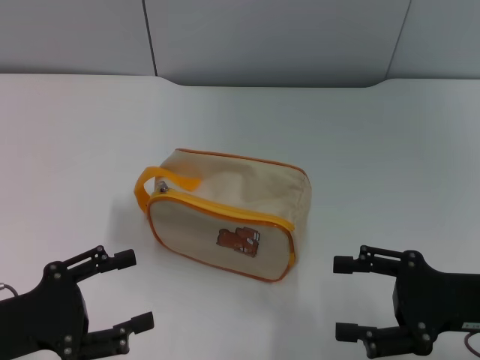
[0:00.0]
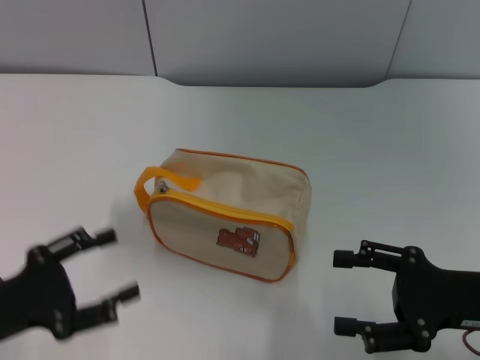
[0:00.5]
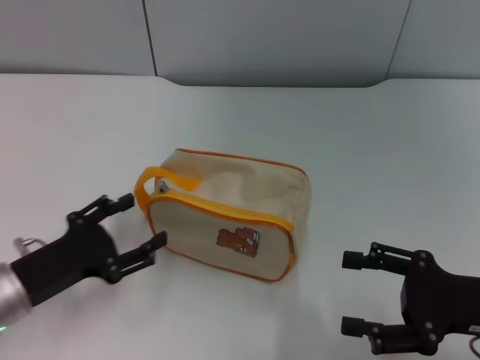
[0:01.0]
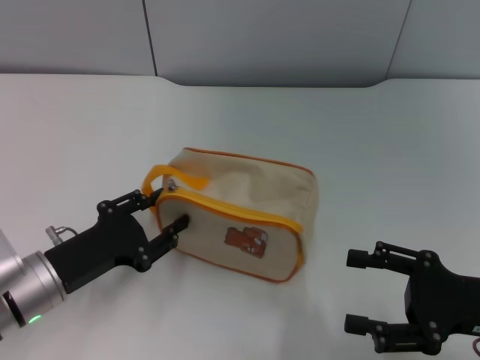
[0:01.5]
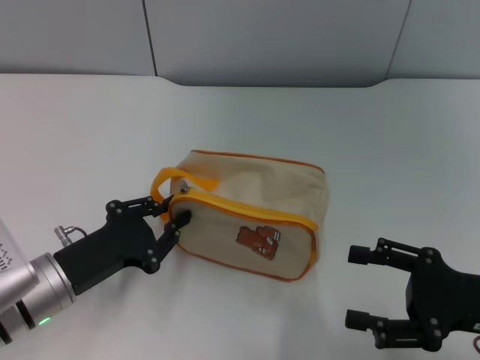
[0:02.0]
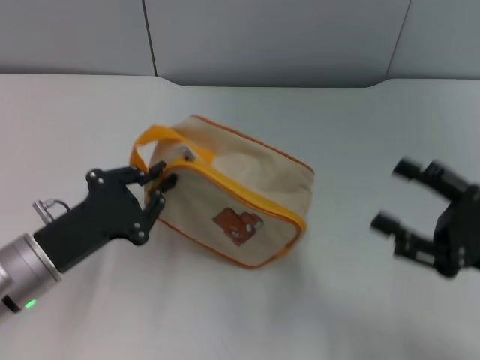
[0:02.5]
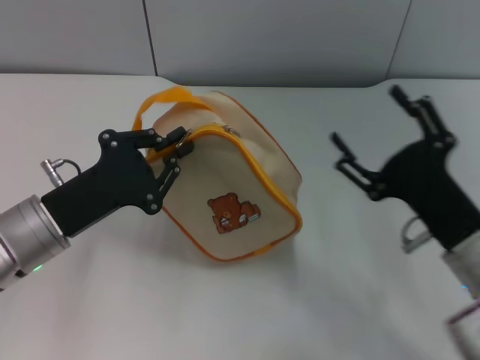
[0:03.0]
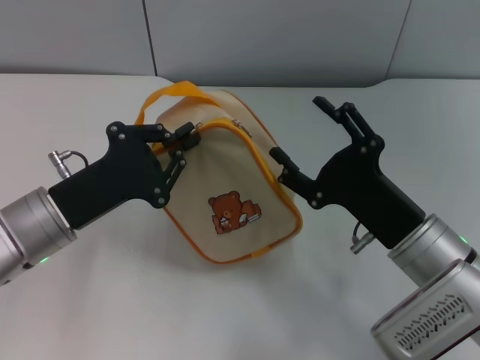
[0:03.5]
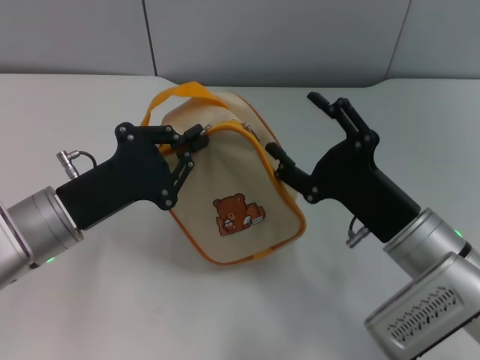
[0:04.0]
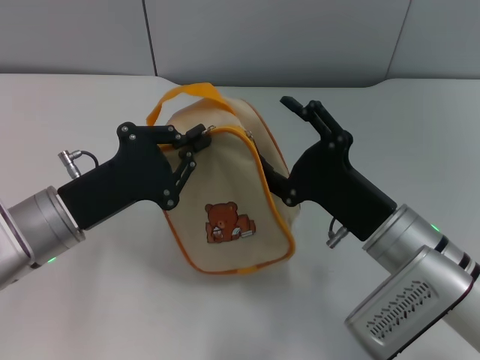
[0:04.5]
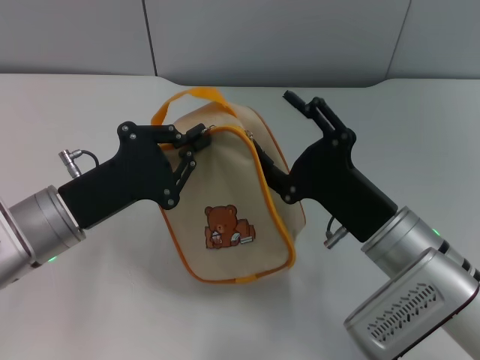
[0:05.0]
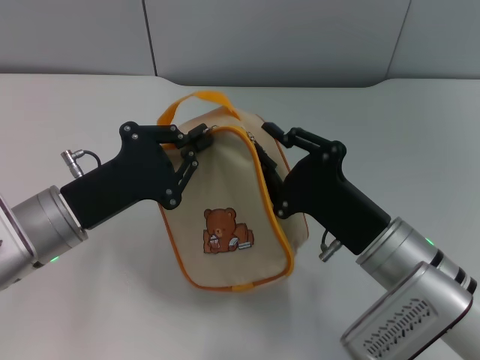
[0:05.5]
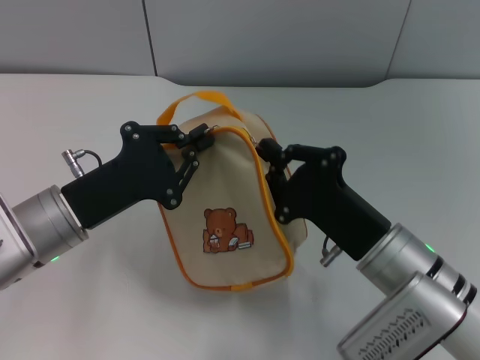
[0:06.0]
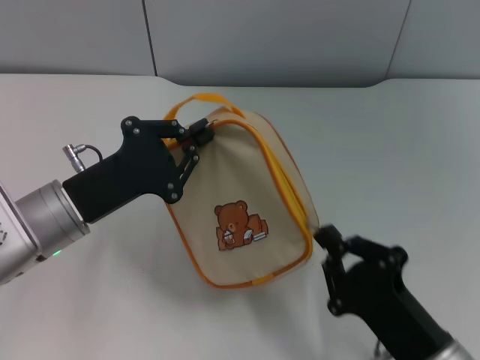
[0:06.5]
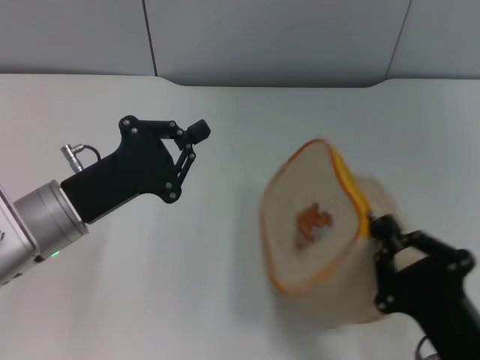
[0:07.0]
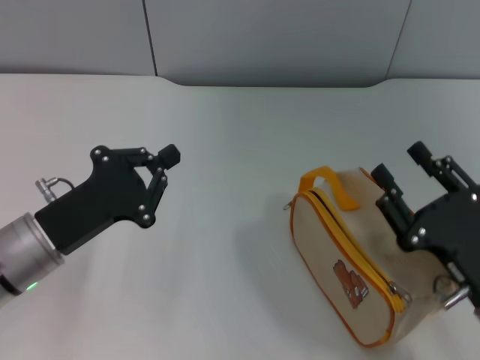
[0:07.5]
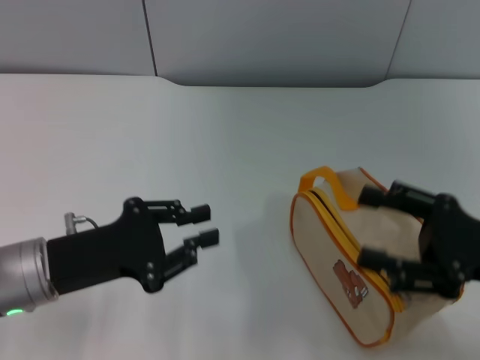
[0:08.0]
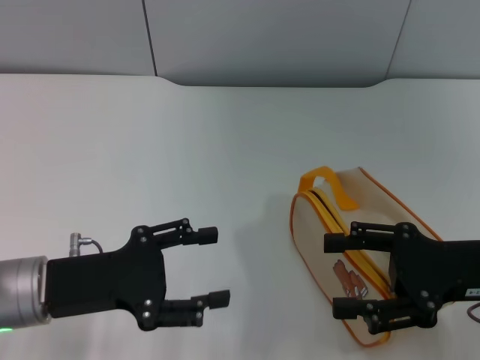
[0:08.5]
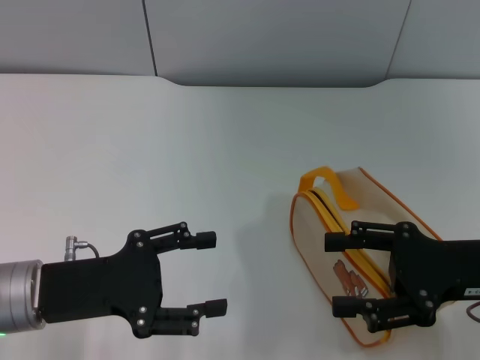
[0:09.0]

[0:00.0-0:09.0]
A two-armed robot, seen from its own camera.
Step, 0:00.0 to 0:02.5: Pick up the bag with left gripper.
Step, 0:03.5 to 0:07.0: Unzip the zipper of bag with right gripper.
0:00.0 to 0:02.0: The left gripper moves to the right and forward, approximately 10 cm, and closes its fingers.
0:02.0 to 0:04.5: The right gripper moves to the left, about 15 cm. The left gripper shifts roughly 5 cm upward.
0:04.5 to 0:07.0: The right gripper is displaced backward by some 15 cm, and closes up.
0:07.0 to 0:09.0: The right gripper goes some 15 cm forward, upward and to the right, and opens its fingers. The left gripper moves approximately 5 cm, and opens its fingers.

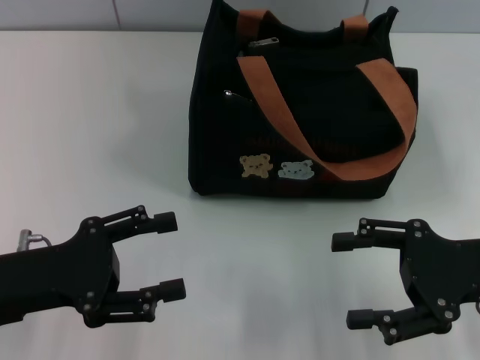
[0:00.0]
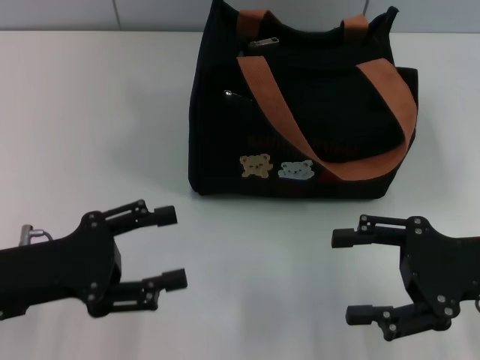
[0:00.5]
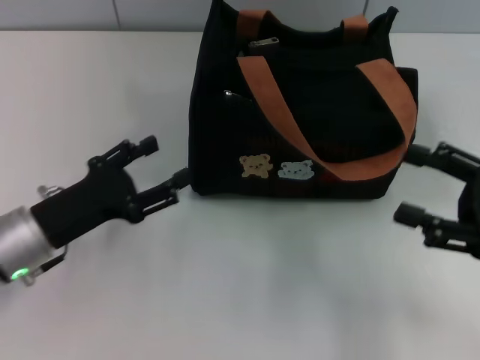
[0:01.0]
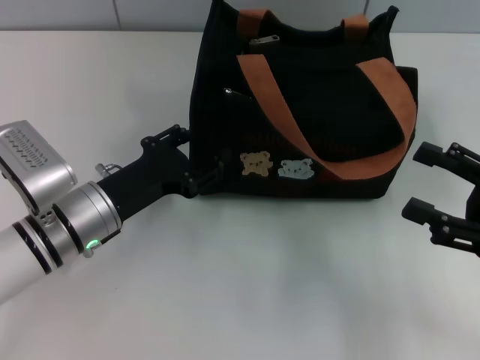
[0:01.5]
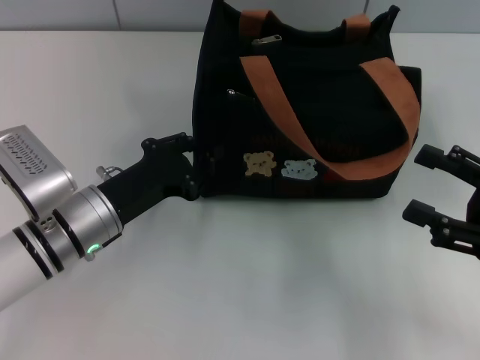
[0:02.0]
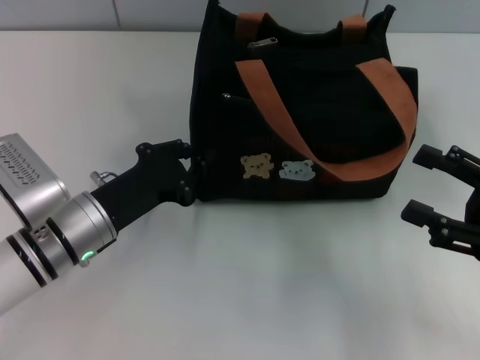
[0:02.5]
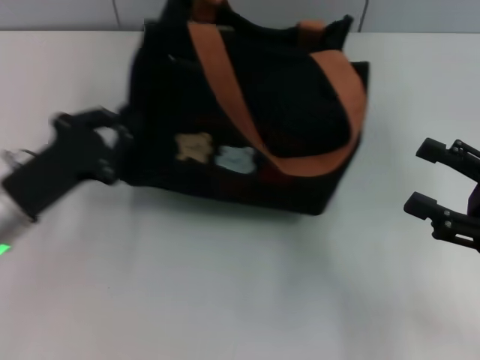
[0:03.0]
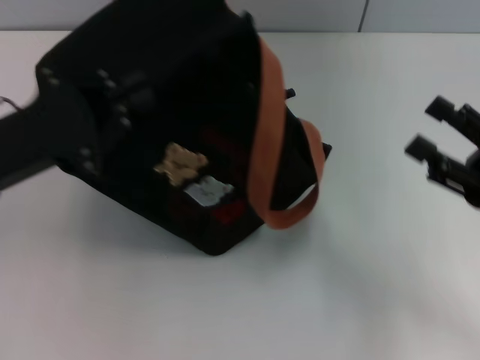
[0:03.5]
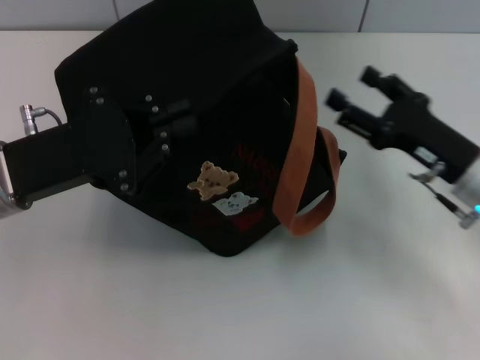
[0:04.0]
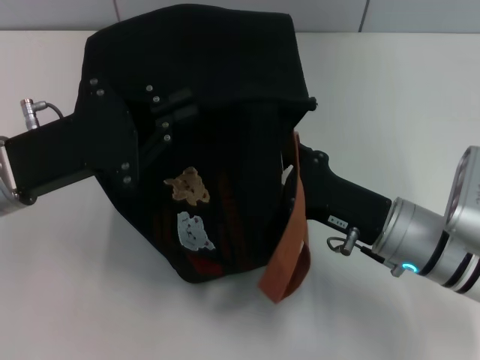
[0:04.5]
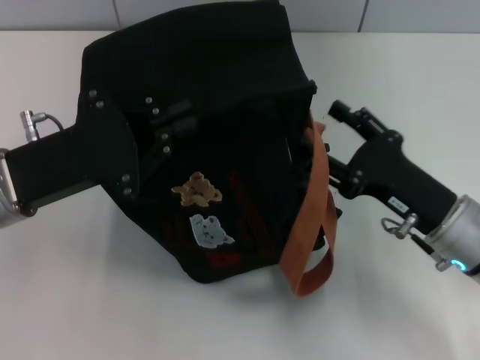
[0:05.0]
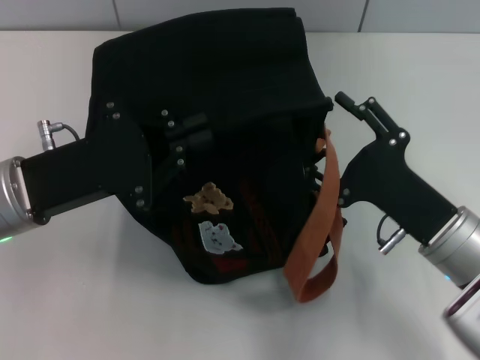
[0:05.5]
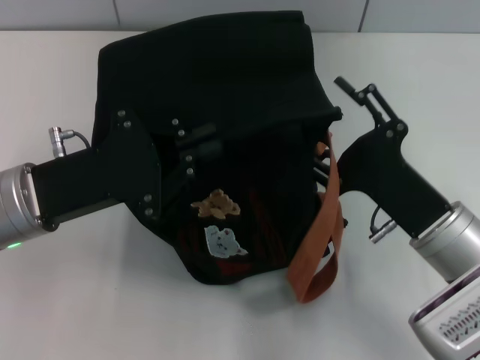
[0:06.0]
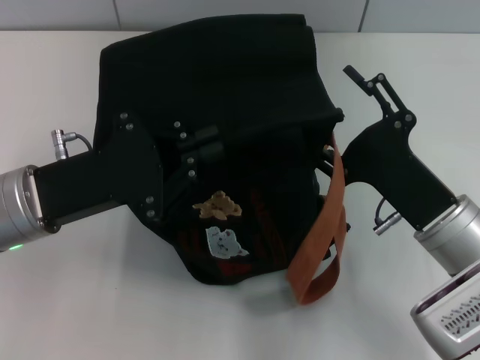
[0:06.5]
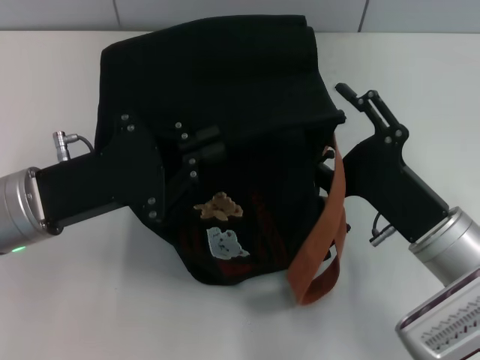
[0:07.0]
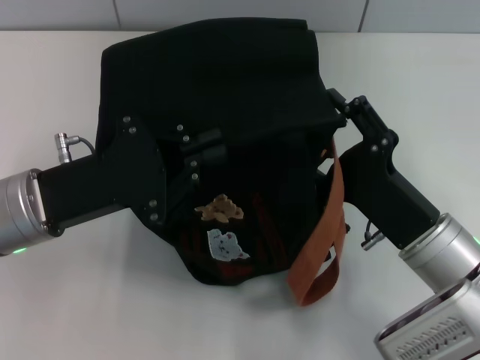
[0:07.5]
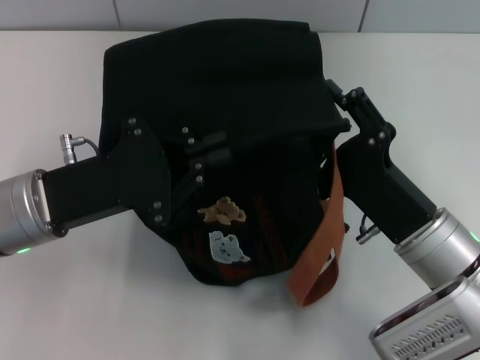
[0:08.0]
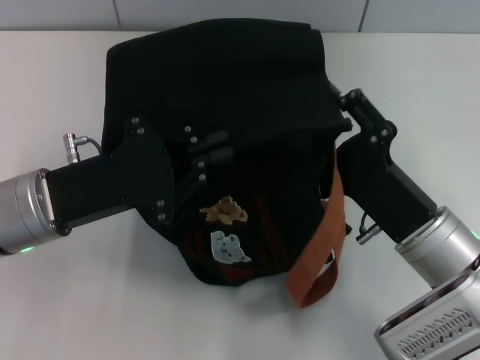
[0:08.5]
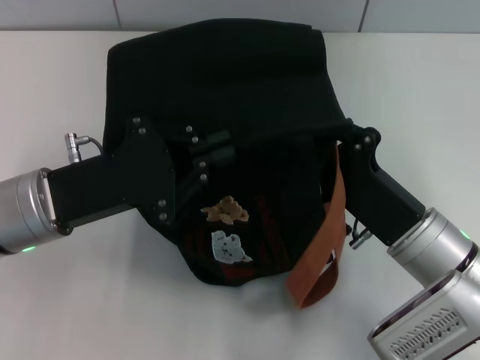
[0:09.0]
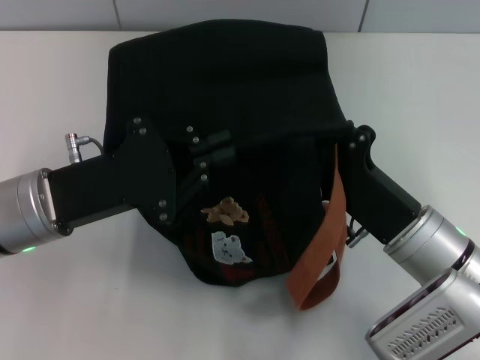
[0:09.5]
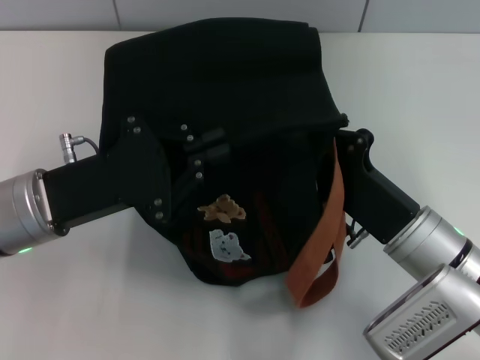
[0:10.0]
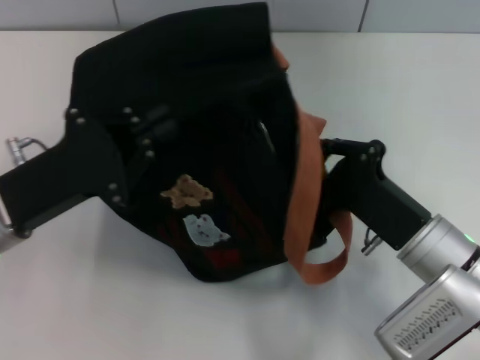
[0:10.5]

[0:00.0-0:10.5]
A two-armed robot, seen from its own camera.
0:00.0 to 0:02.0: The right gripper moves roughly 5 cm. Meanwhile the left gripper heads to the right, forward and downward, covering roughly 10 cm, and closes.
0:02.0 to 0:04.0: The left gripper is displaced upward and to the left by some 10 cm, and closes up; the right gripper heads forward and to the left, covering some 10 cm.
0:04.0 to 0:06.5: The right gripper is displaced backward by approximately 5 cm.
0:06.5 to 0:08.5: The grippers move only a little.
0:08.5 to 0:10.5: The right gripper closes.

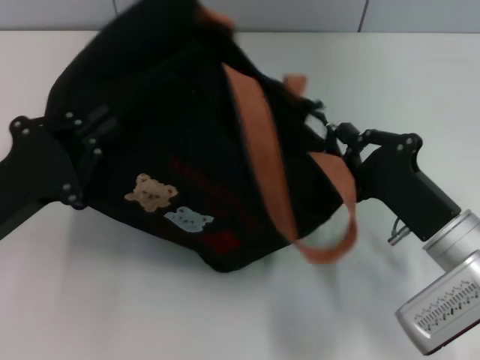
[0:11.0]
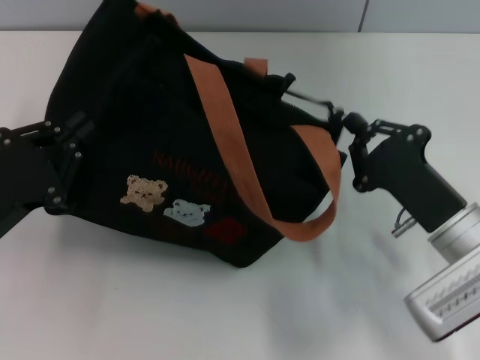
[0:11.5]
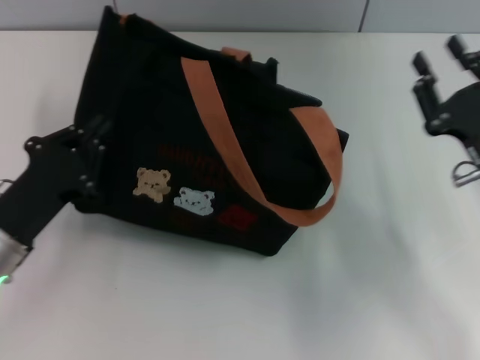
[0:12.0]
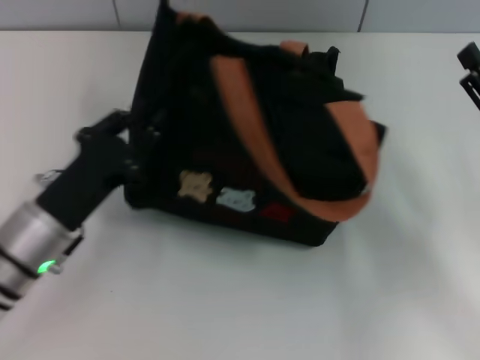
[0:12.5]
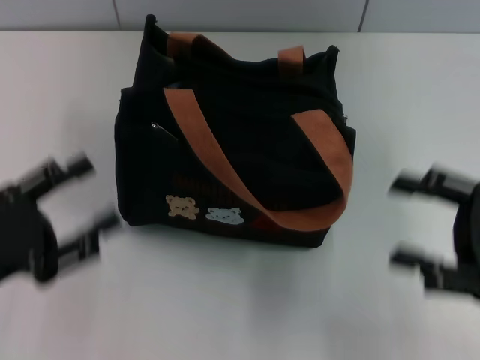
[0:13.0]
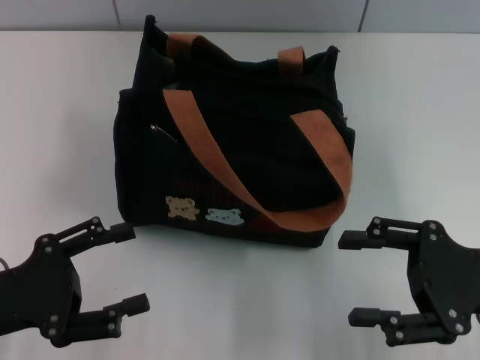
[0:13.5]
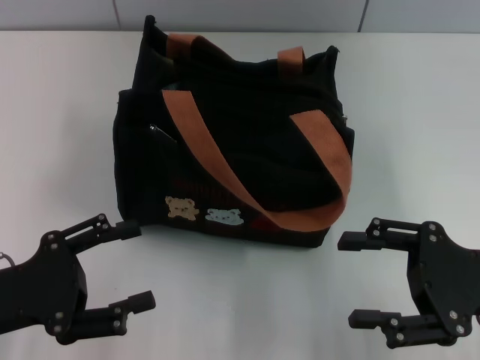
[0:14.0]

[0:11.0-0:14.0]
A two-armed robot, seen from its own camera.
Step, 0:12.0 to 0:12.5: Grab the bag with your left hand.
0:11.0 to 0:12.5: The right gripper heads to the right, covering approximately 10 cm, and opens up. Meanwhile the left gripper heads to the right, covering about 5 cm.
0:12.5 to 0:14.0: The right gripper ends up about 5 cm from where it was. Meanwhile the left gripper is displaced to the left and backward by some 10 cm, and opens up.
